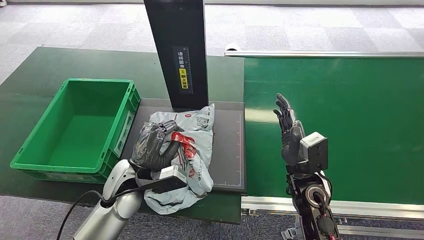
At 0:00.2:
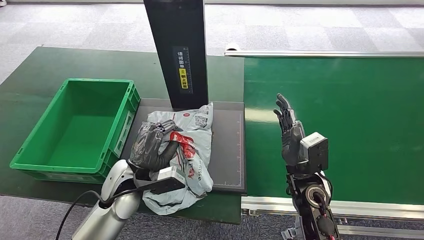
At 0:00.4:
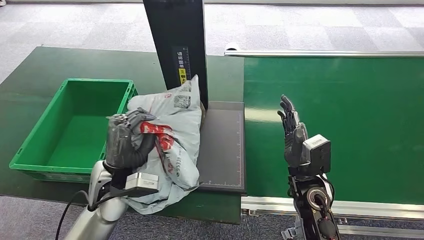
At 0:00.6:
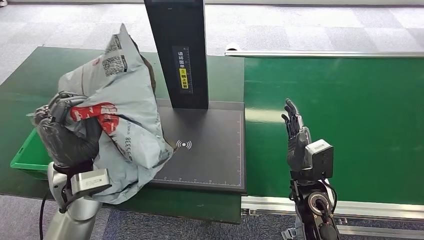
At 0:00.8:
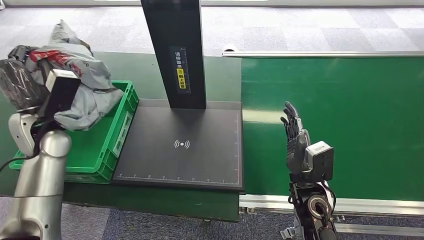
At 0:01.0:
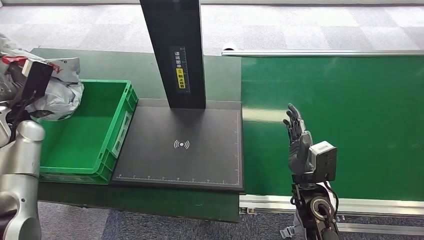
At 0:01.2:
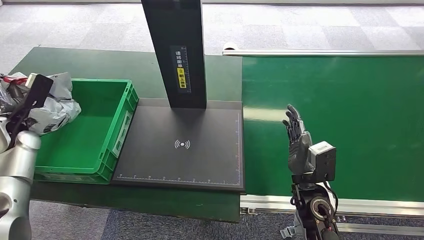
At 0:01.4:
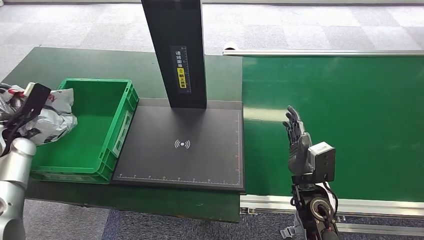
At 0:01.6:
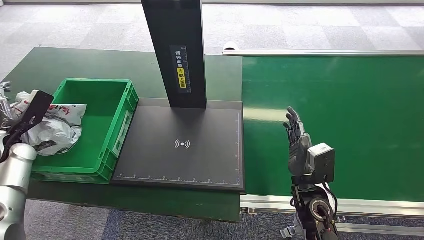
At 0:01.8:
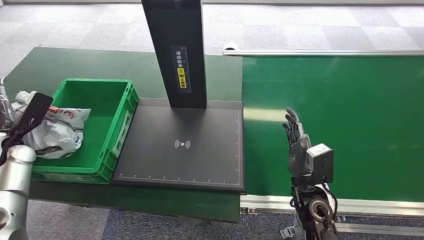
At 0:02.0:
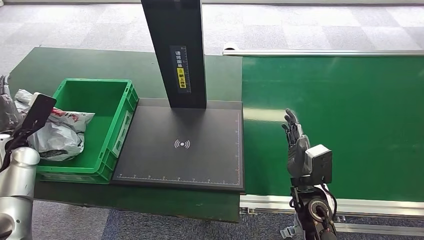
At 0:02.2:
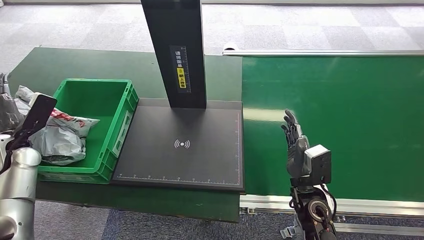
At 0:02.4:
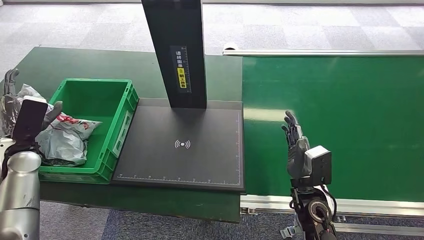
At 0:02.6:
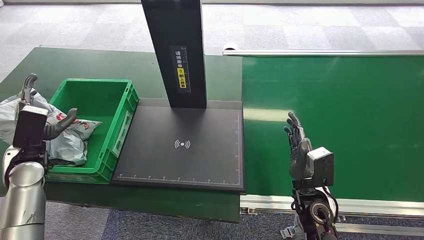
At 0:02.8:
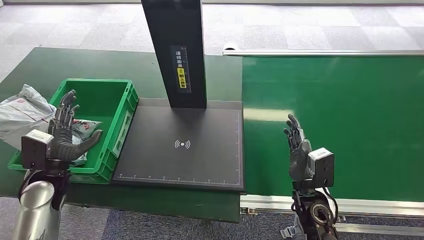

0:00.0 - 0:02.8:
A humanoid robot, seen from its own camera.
Step, 0:00.8 - 0:02.6: Place the package into the parcel locker.
0:01.4 - 0:02.8: The left hand is displaced to the right and backward by roughly 15 cm.
